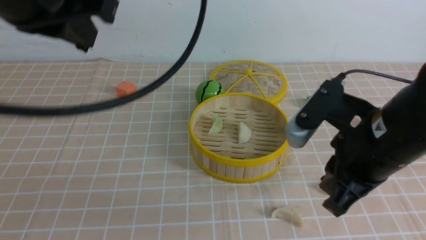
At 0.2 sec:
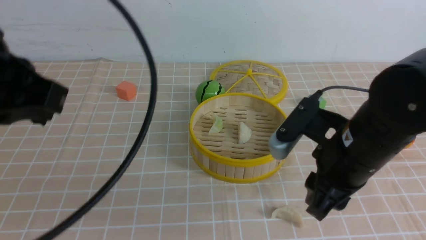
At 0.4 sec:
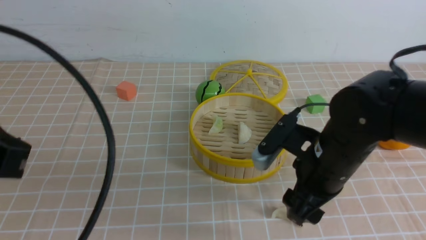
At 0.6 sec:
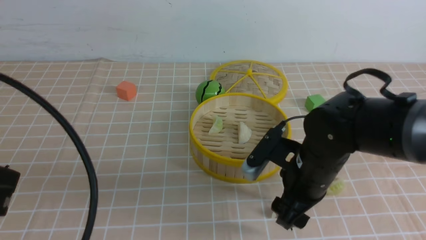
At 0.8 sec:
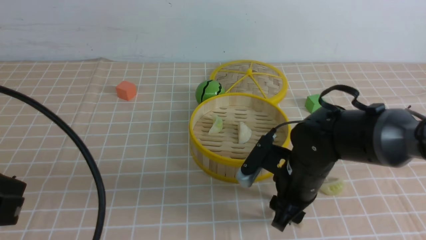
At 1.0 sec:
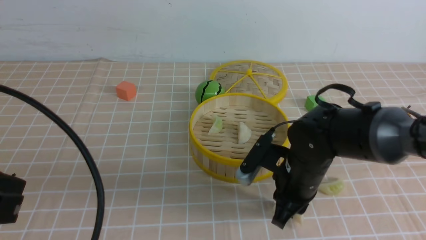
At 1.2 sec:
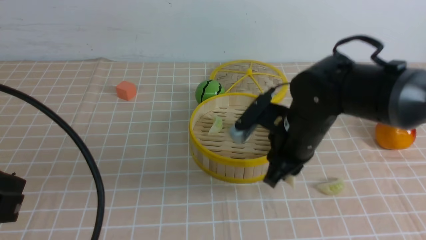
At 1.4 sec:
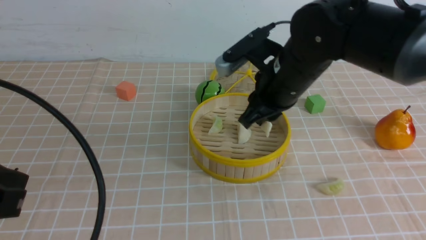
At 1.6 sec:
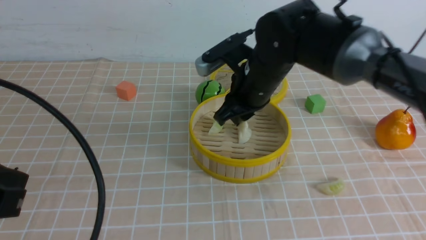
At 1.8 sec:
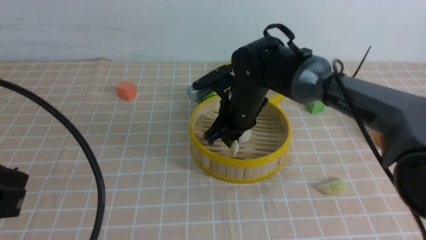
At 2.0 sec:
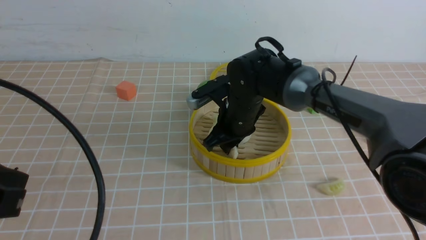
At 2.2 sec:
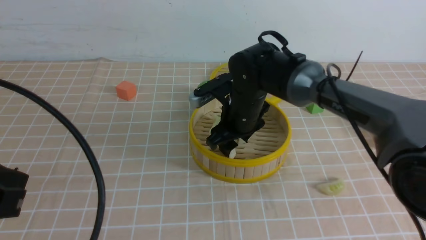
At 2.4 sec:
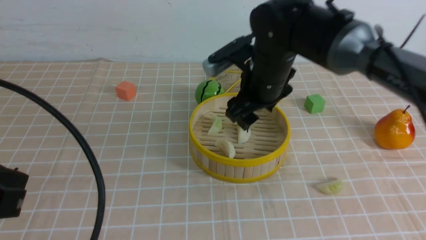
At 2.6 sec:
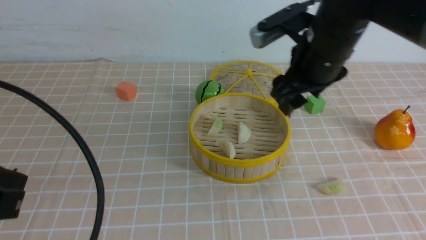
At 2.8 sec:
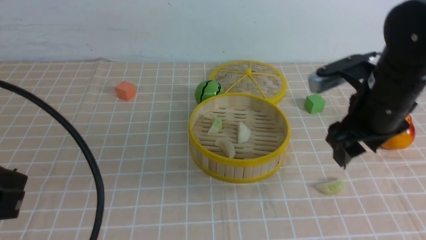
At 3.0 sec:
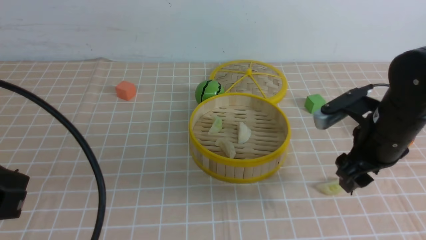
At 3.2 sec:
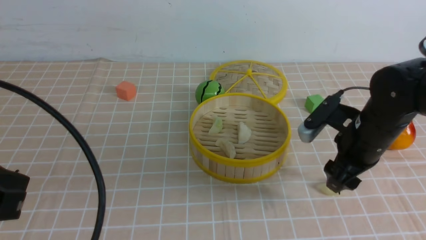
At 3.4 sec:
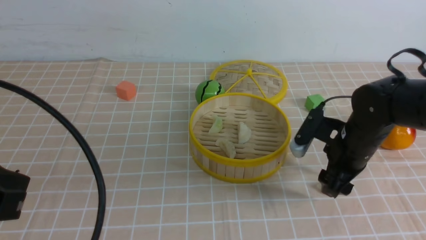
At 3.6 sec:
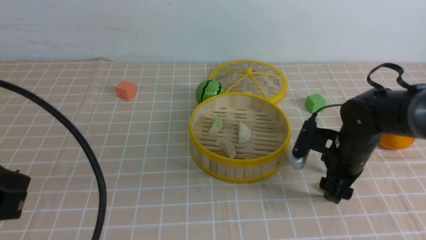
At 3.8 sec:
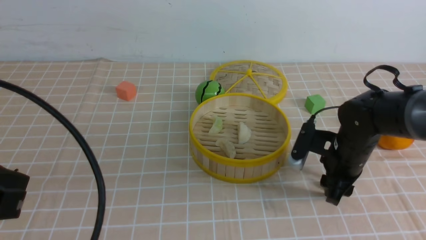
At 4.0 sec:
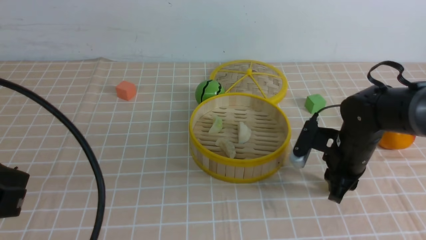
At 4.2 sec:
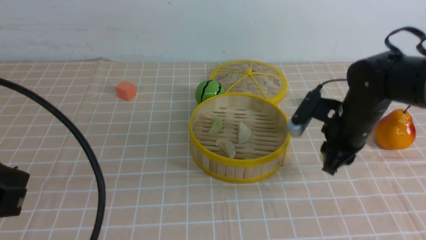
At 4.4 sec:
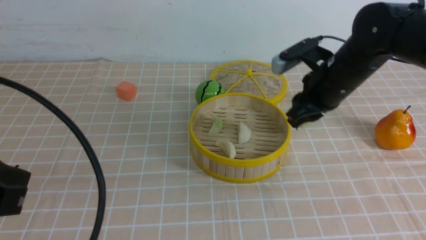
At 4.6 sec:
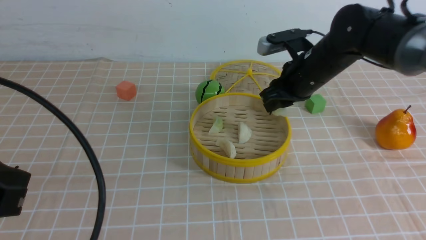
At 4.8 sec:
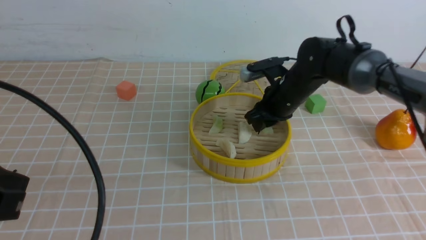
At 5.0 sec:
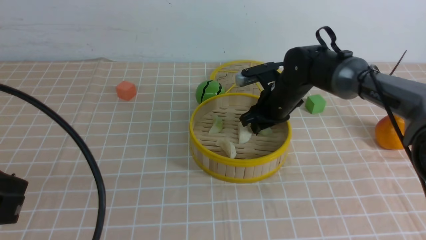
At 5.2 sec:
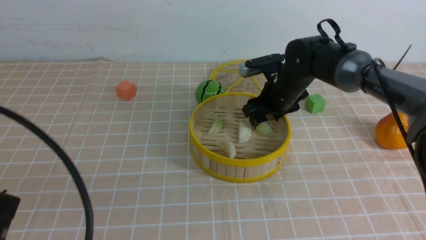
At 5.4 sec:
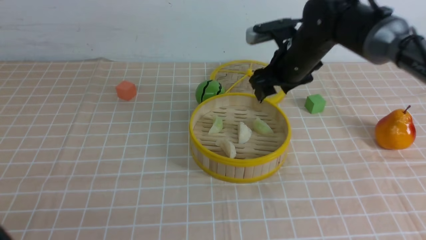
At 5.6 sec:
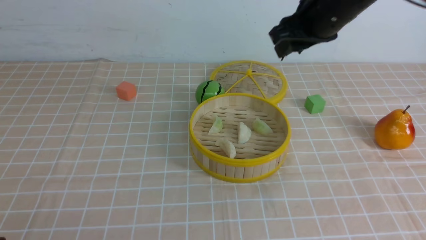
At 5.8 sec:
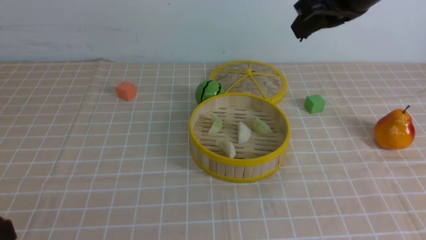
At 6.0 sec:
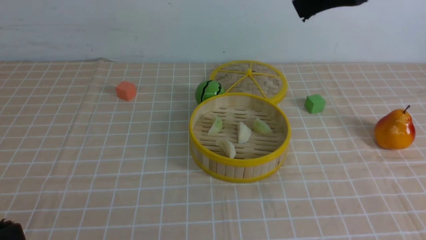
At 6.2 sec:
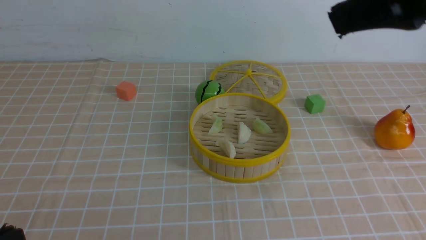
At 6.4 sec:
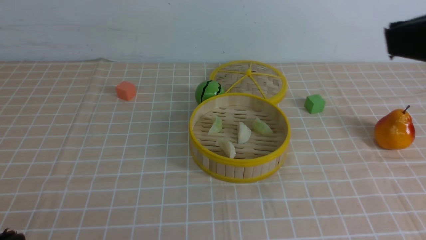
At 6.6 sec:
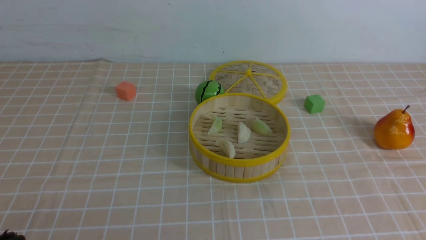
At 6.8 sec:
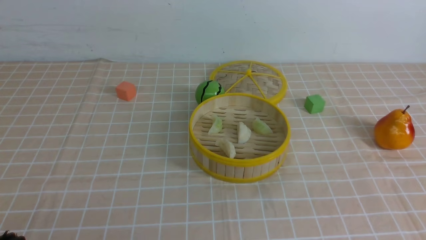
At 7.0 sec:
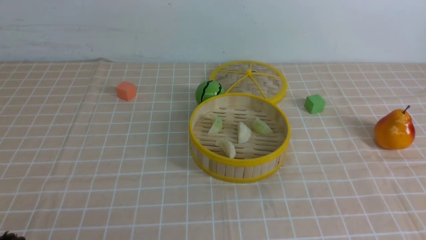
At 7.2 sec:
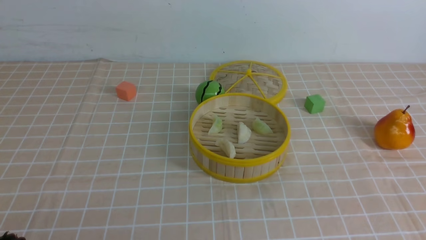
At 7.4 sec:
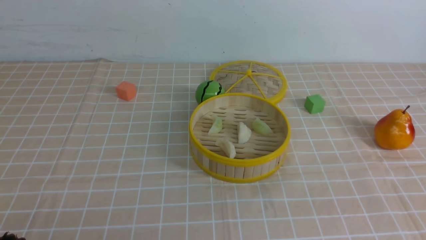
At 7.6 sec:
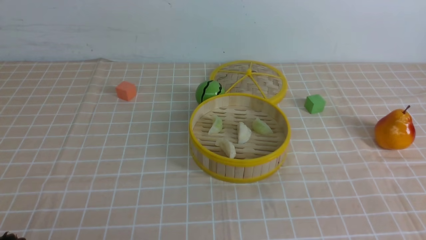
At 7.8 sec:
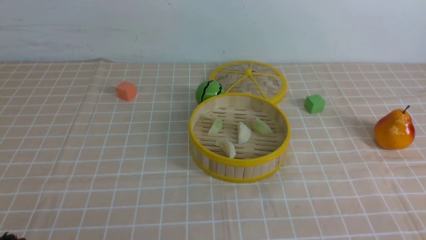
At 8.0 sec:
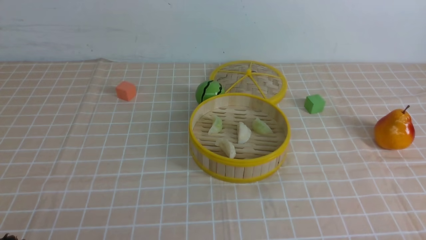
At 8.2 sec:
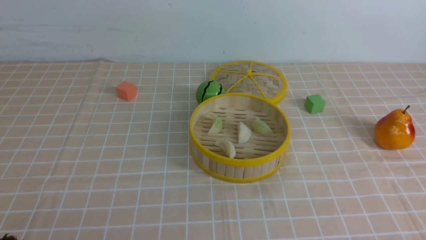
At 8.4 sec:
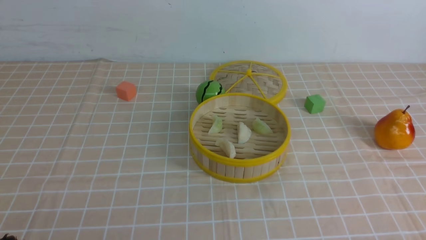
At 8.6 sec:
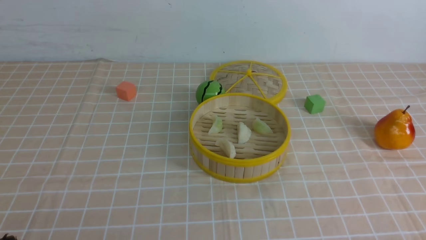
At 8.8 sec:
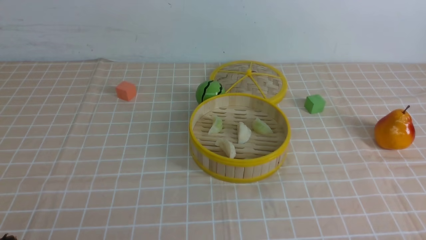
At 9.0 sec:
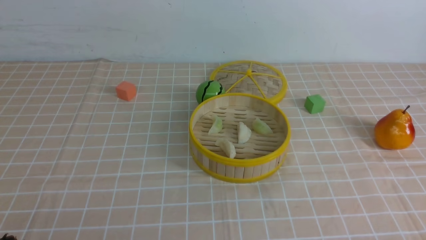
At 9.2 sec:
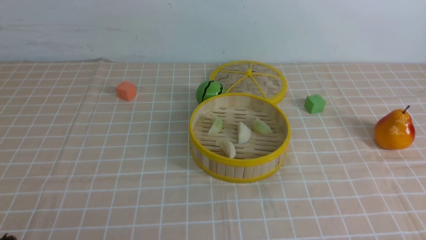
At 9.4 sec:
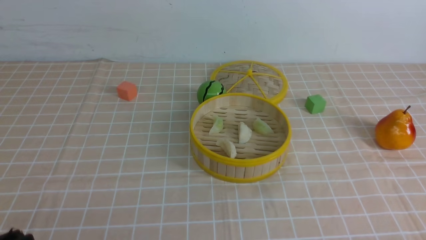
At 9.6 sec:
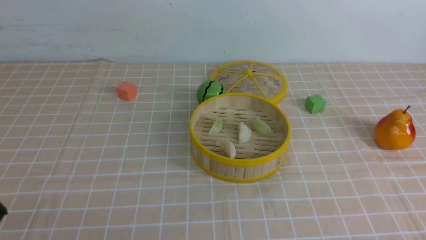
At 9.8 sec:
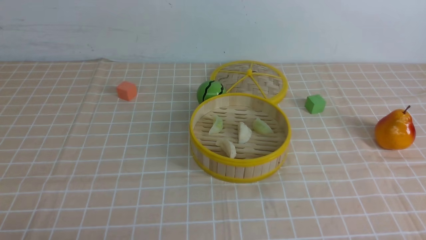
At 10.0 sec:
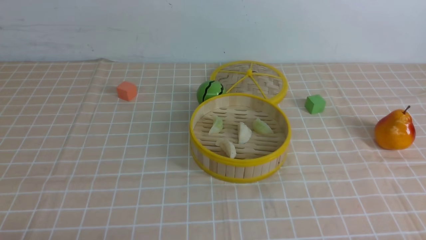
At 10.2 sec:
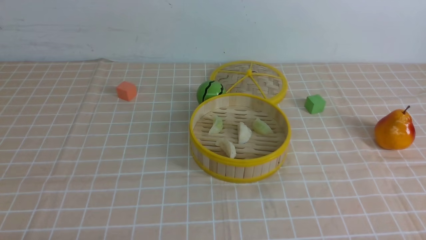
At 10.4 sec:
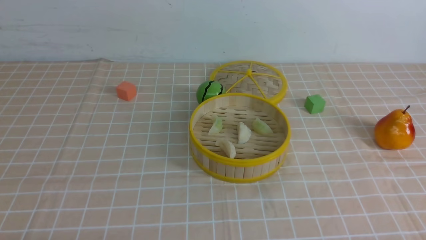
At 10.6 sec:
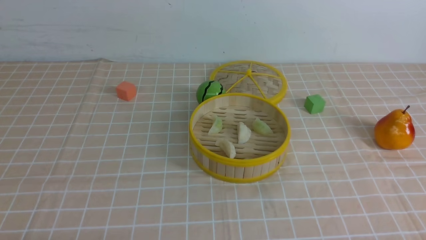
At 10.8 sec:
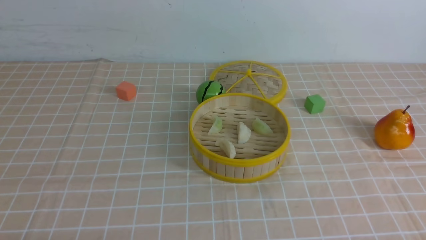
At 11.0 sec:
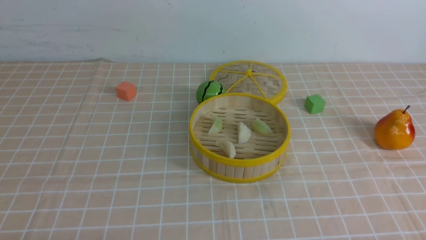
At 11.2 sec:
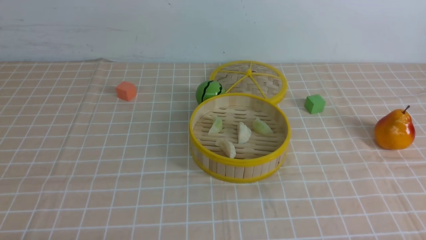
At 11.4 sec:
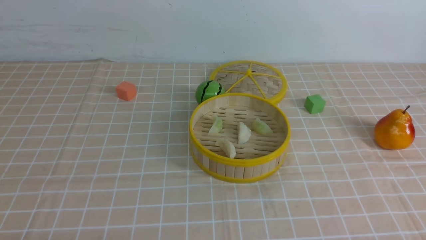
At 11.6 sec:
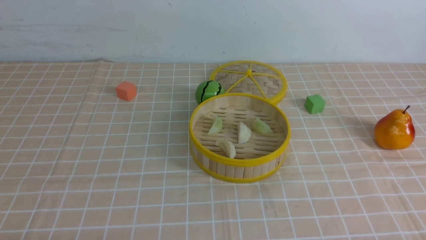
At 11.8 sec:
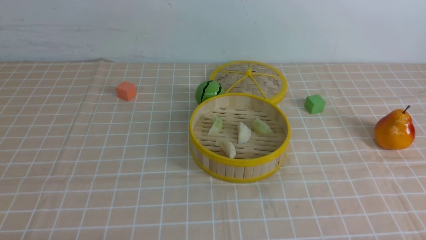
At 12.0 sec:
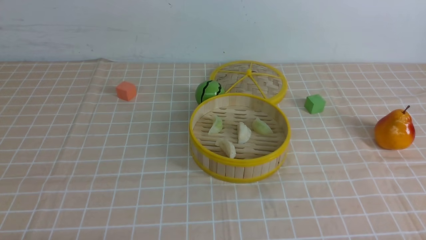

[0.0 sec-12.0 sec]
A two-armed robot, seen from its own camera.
Task of the whole recording: put the dumplings into the steamer on the table with the brown tablecloth.
Step, 0.8 sec to 2.2 sec: use the right arm to put the dumpling into the steamer.
Step, 2.6 sec to 3.8 sec: use the right arm to grab a dumpling.
Step, 4.0 sec to 5.2 sec: use the right arm to put the dumpling into the steamer.
0.0 sec to 1.6 sec: The right gripper shifts roughly 20 cm forward and to the left, and opens, then closes again, while the left gripper is displaced backward, downward and to the left by about 15 cm.
1.6 sec to 3.0 sec: The right gripper travels to the right and backward by about 15 cm, and opens up.
3.0 sec to 4.4 sec: The right gripper moves forward, about 10 cm, reaches some 10 cm downward, then returns, and closes its fingers.
4.4 sec to 6.0 sec: The right gripper is displaced upward and backward by some 25 cm, and closes its fingers. The left gripper travels downward and backward by approximately 10 cm.
6.0 sec to 7.6 sec: The right gripper goes roughly 30 cm backward, downward and to the right.
10.4 sec to 12.0 sec: Both grippers stay put.
